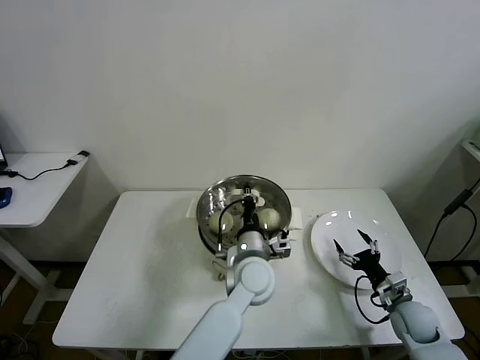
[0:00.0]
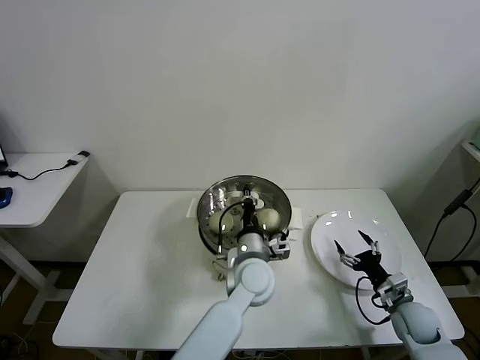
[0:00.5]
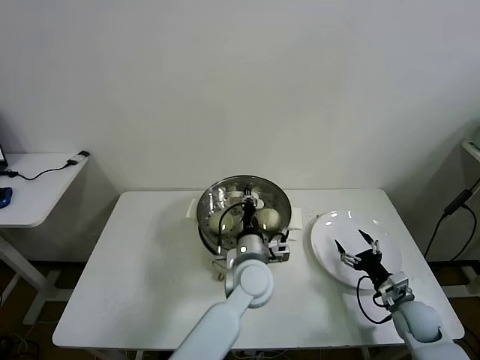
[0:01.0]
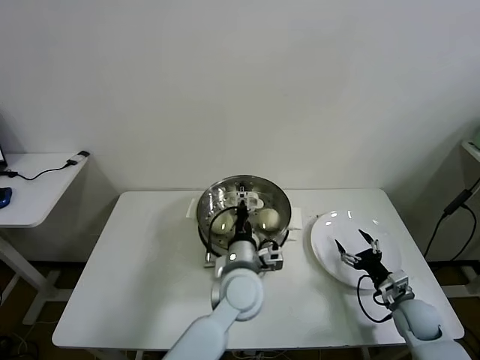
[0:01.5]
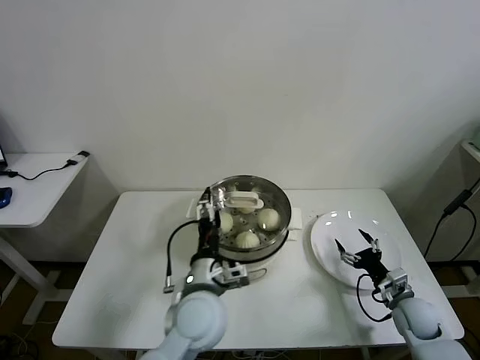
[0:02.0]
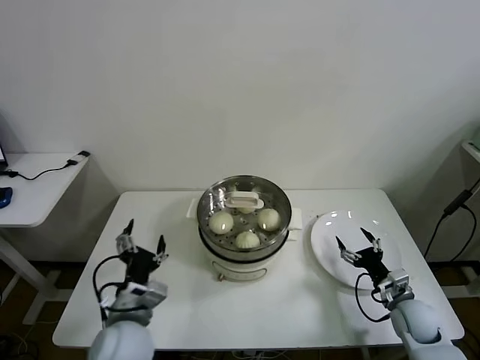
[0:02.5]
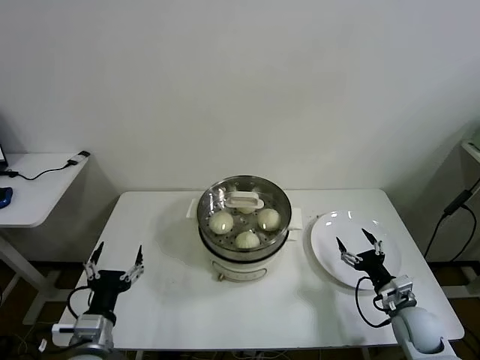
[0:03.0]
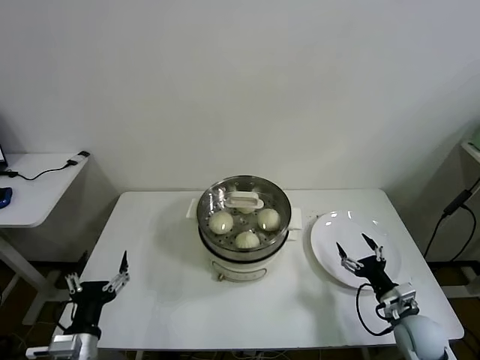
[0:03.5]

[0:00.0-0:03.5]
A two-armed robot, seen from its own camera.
Task of the whole recording: take steamed baozi put them in steamer then cover it.
0:00.0 to 0:02.0: The left gripper heads to the left and backward, covering approximately 10 cm, and opens.
0:02.0 to 0:03.5: The left gripper moves to the left and backward, about 25 cm, while the right gripper ends up roughly 5 cm from where it was.
